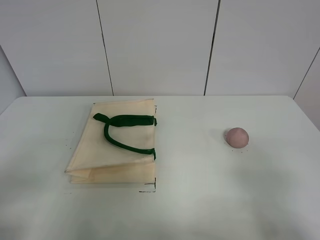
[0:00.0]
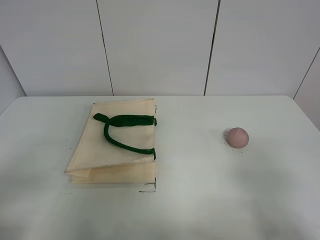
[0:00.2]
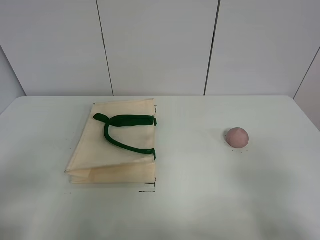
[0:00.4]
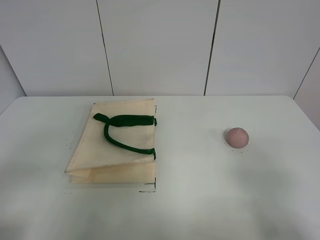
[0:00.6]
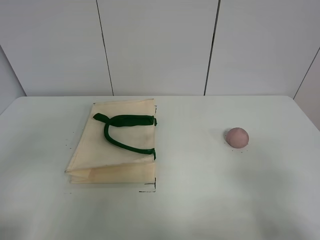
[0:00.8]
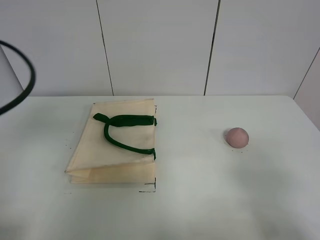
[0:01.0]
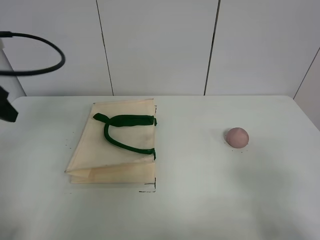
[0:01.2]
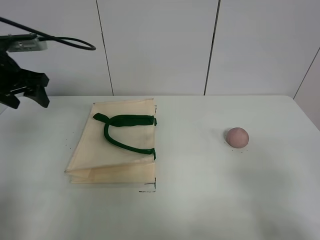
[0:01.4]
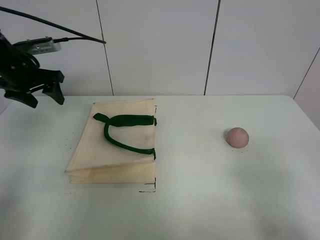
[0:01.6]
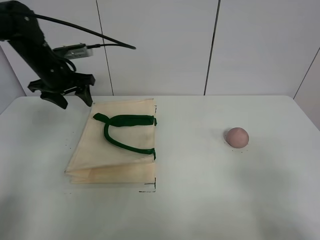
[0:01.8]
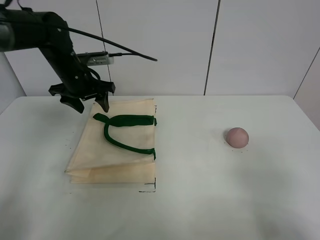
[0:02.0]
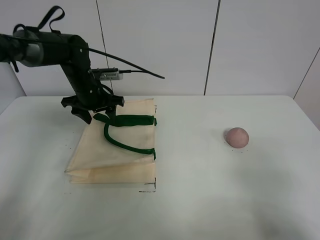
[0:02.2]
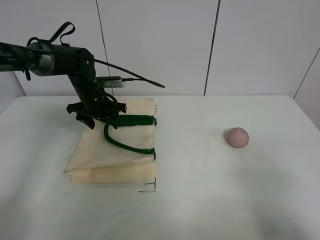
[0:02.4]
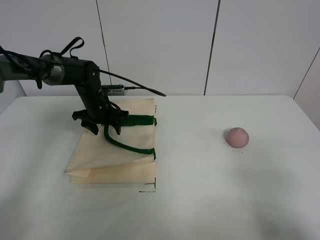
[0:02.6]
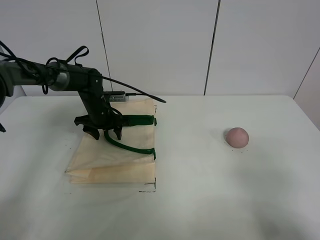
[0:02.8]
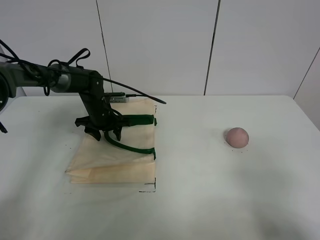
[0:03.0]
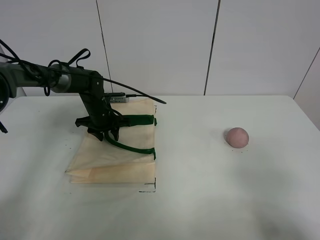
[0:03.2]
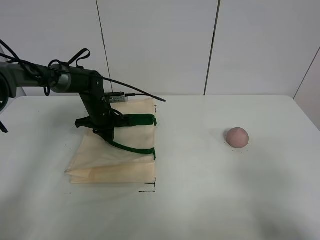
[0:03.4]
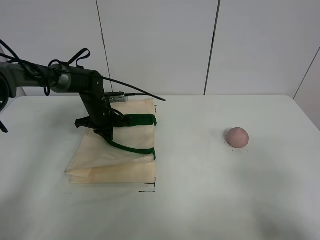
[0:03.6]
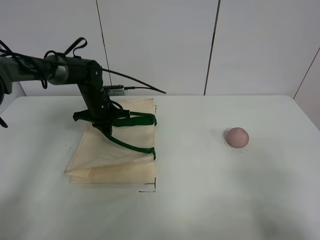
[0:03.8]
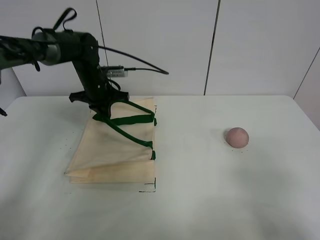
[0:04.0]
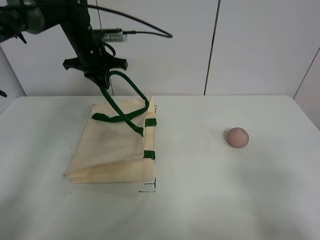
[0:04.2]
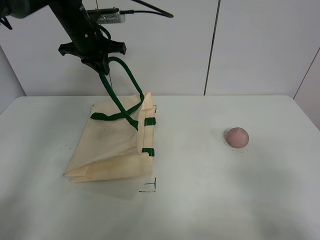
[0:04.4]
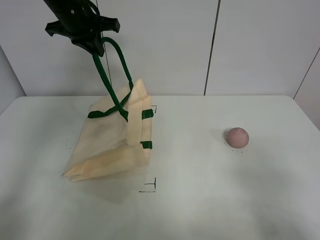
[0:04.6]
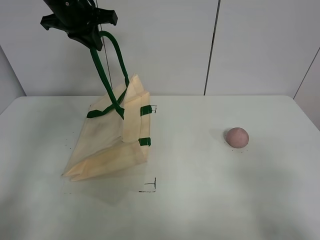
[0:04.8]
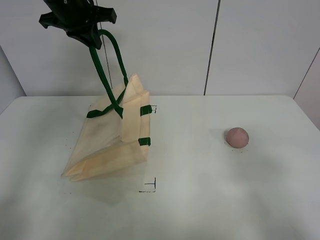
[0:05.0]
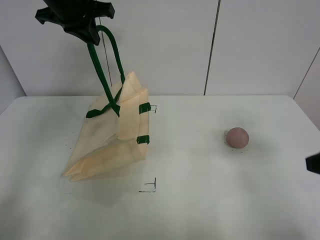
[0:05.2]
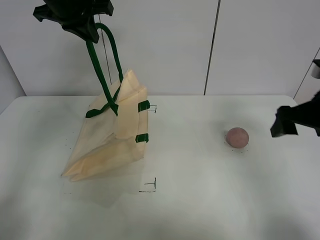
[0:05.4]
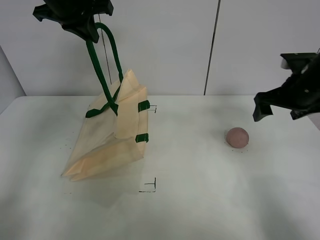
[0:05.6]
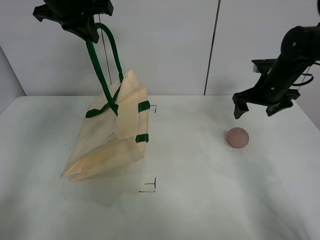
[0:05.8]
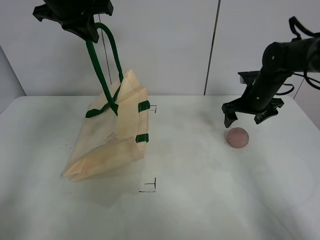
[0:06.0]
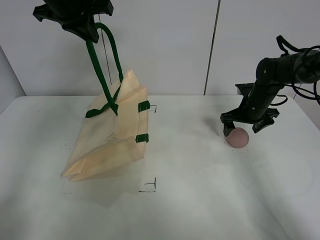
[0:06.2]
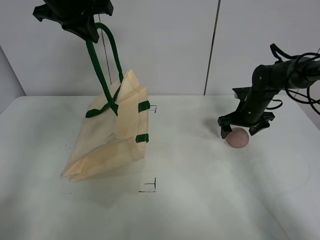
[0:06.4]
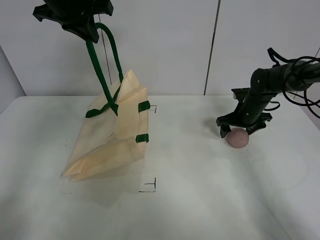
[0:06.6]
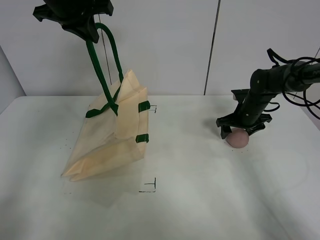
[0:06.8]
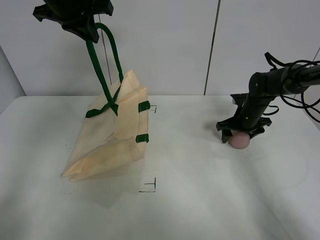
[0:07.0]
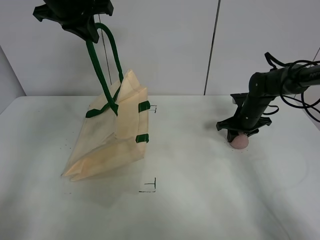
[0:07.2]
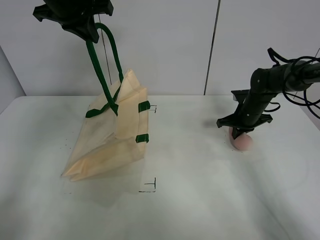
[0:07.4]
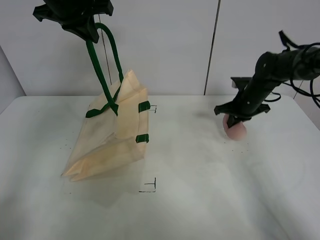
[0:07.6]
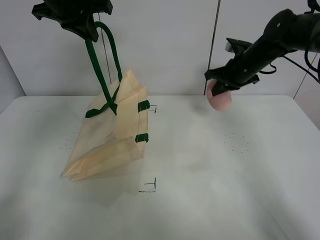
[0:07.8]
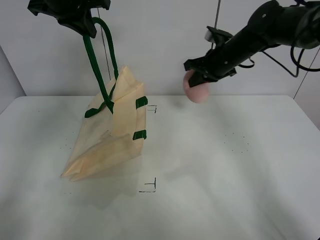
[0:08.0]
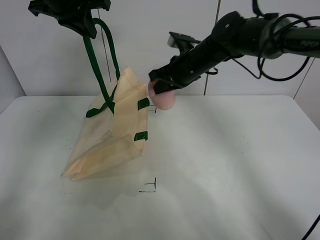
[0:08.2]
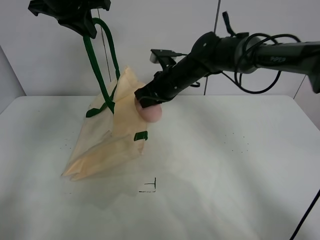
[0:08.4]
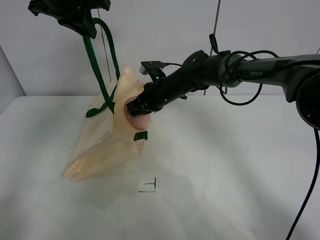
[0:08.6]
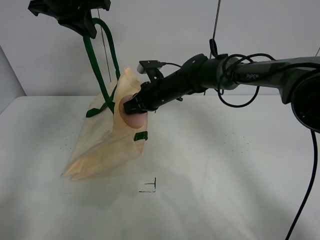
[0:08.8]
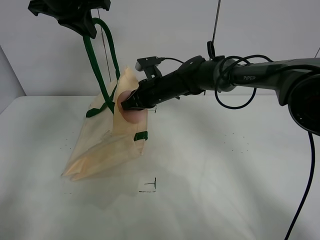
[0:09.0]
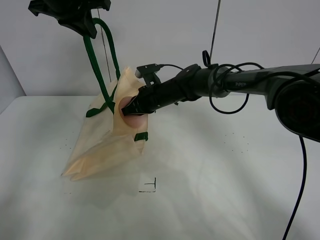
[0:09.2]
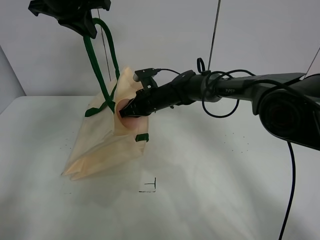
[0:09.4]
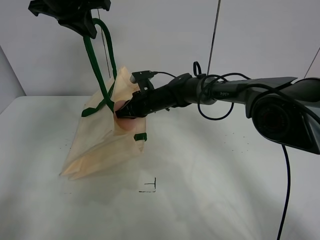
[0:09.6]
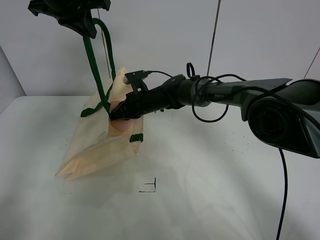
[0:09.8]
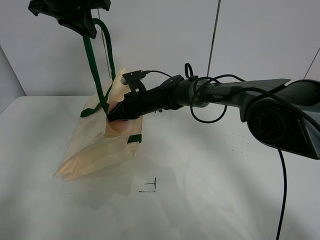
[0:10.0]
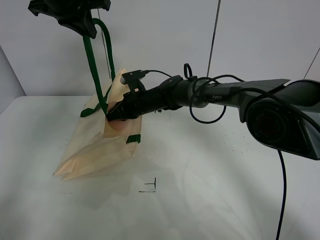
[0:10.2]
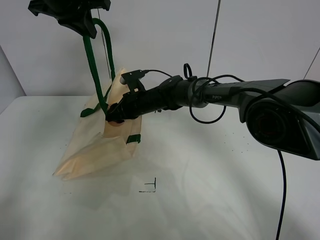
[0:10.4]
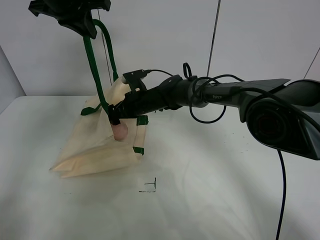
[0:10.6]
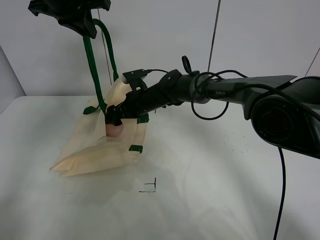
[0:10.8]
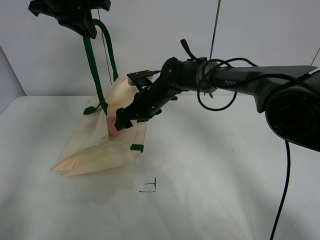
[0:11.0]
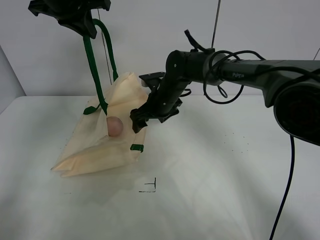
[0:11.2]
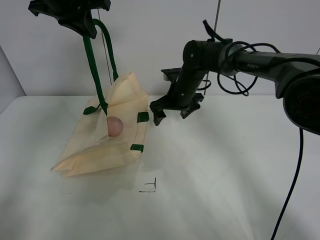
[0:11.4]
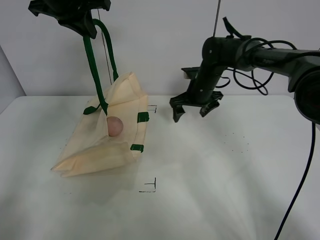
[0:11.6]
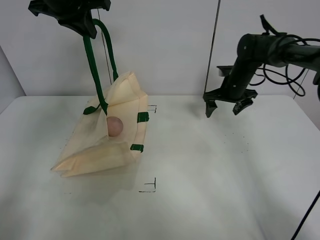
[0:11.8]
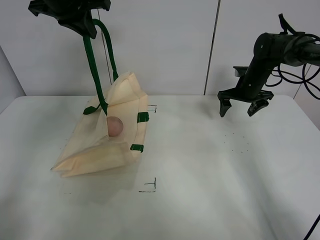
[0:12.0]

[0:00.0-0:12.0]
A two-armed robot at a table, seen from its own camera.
Task of the whole recording: open the white linen bag and put the peach in the bag.
Step, 0:00.0 to 0:05.0: Lift the handbag with left gripper.
Step, 0:05.2 to 0:07.4: Grasp the peach with right gripper.
Step, 0:07.6 to 0:10.4: Place the peach in the handbag with right gripper.
0:00.0 to 0:01.6: The left gripper moves forward, about 40 cm.
0:01.6 to 0:03.0: The left gripper goes about 20 cm downward and to the right.
0:03.0 to 0:04.4: The left gripper goes roughly 20 cm upward, and closes its fingers.
0:04.4 to 0:06.0: The left gripper travels upward by some 10 cm; the right gripper moves forward, roughly 40 cm.
0:06.0 to 0:07.6: The right gripper closes up.
0:07.6 to 0:09.0: The right gripper heads to the left, covering approximately 25 cm.
0:09.0 to 0:10.4: The right gripper ends up roughly 5 cm from where it was, and opens.
0:10.4 to 0:12.0: The right gripper heads to the right, covering approximately 30 cm.

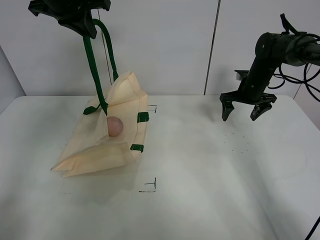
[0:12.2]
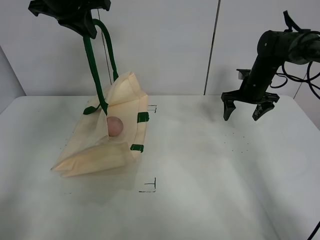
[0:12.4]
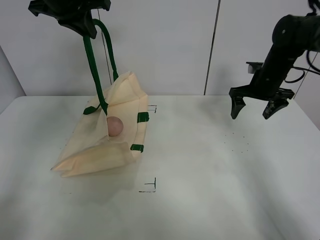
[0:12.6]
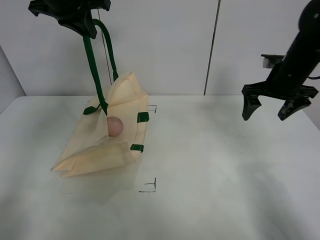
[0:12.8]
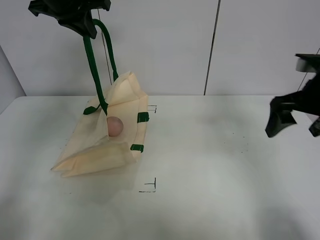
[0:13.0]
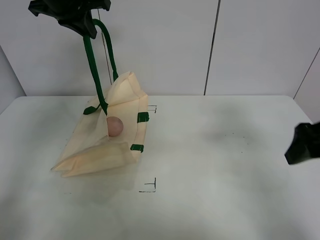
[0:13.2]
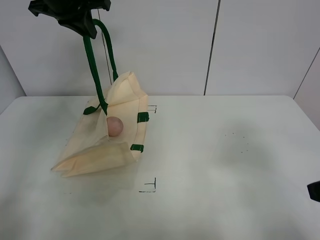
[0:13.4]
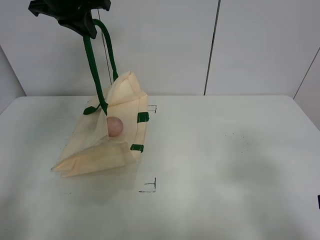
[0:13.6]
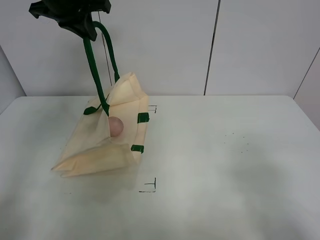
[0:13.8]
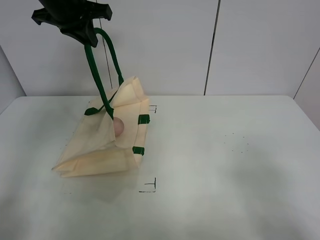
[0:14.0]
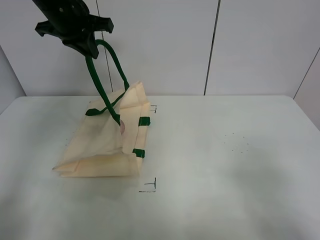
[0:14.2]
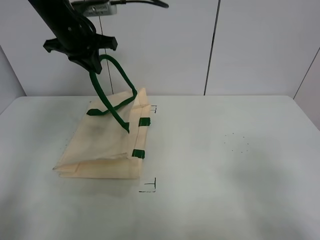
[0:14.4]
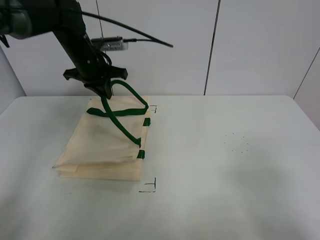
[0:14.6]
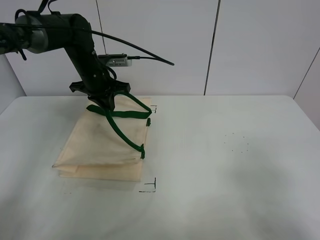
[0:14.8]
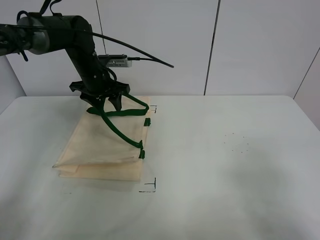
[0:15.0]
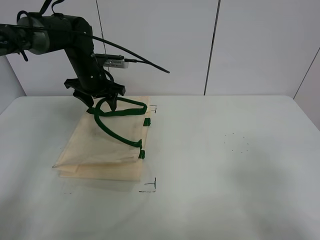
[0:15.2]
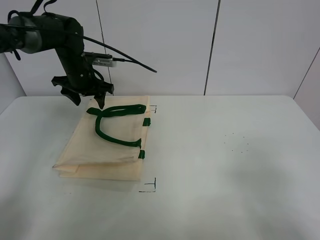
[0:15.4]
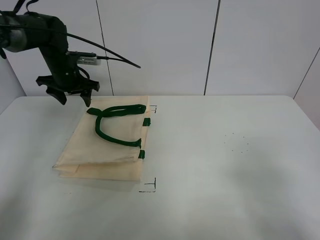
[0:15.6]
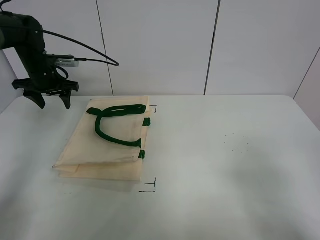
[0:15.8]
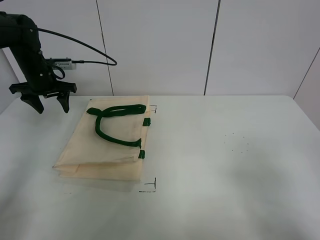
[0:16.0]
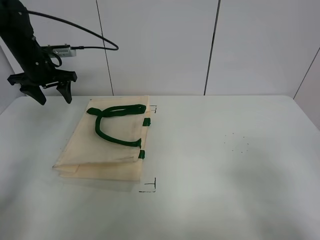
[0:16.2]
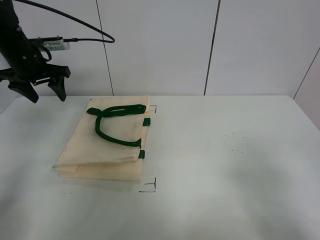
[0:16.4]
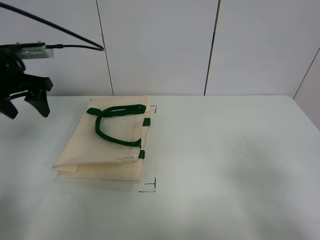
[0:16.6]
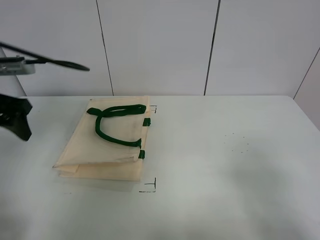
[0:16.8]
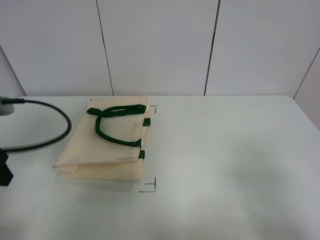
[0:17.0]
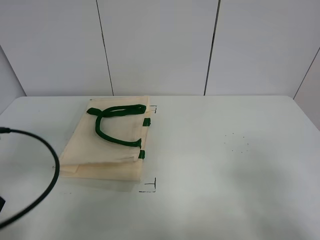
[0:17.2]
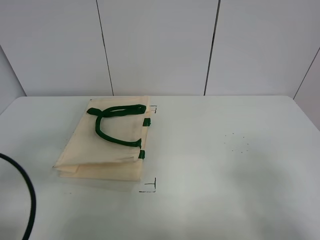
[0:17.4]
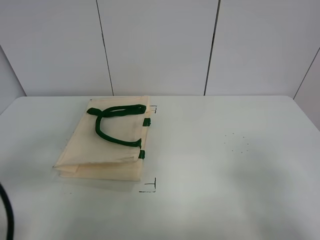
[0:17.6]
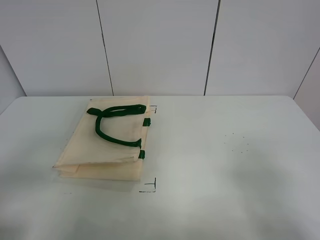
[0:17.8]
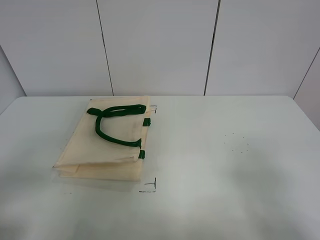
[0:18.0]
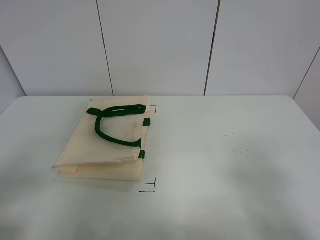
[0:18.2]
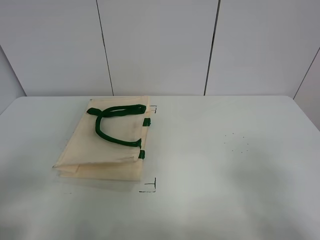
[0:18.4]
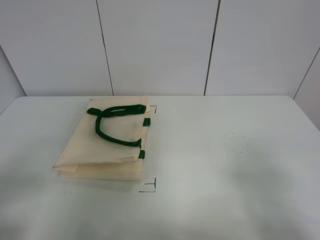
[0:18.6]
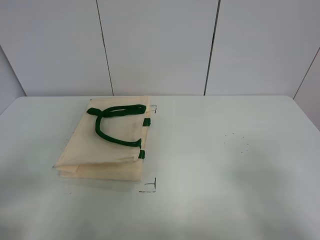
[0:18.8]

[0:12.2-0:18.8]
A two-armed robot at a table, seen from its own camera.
Task of the whole recording: open the white linen bag and put the peach in the bag.
Step, 0:12.2 to 0:15.2: Put down the handbag with left gripper.
0:12.2 to 0:13.8: The right gripper travels backward by approximately 50 cm.
0:13.8 to 0:15.4: The left gripper is displaced downward by approximately 20 cm, and opens.
0:15.4 to 0:17.2: The left gripper shifts approximately 35 cm backward.
0:17.2 to 0:18.8: The left gripper shifts approximately 10 cm backward.
